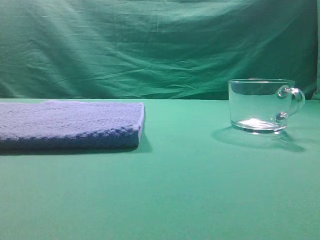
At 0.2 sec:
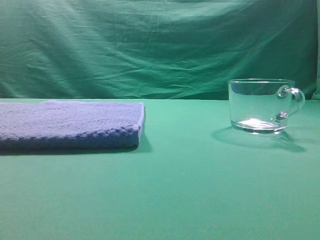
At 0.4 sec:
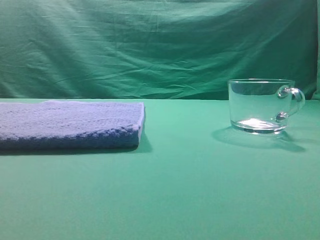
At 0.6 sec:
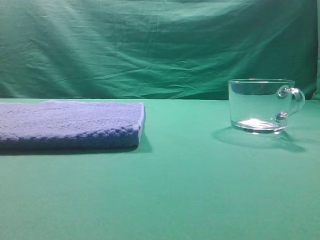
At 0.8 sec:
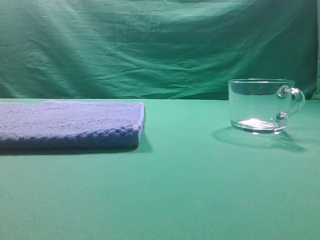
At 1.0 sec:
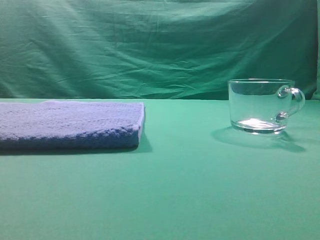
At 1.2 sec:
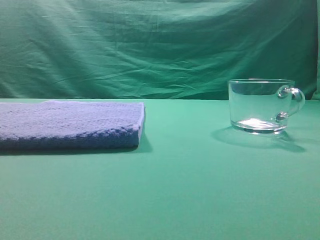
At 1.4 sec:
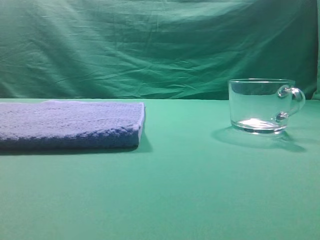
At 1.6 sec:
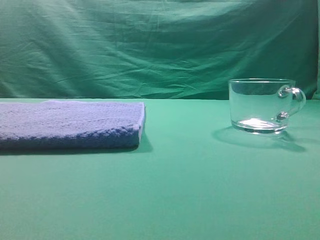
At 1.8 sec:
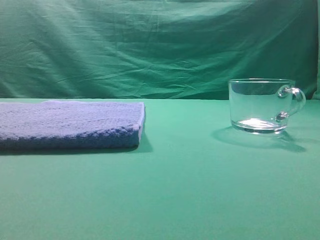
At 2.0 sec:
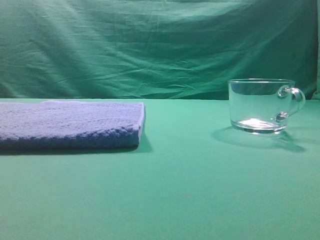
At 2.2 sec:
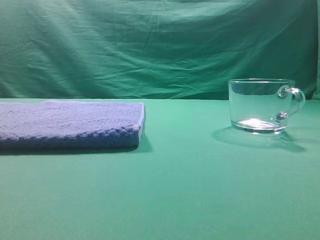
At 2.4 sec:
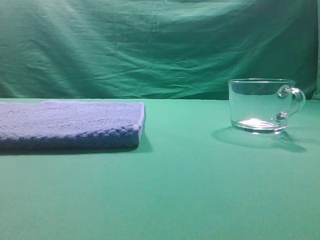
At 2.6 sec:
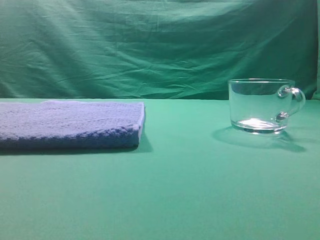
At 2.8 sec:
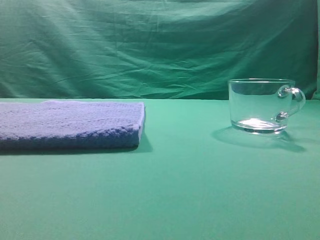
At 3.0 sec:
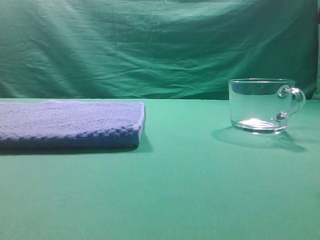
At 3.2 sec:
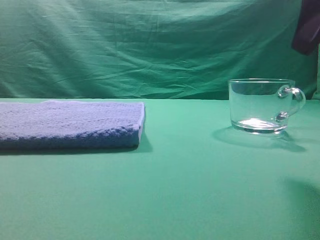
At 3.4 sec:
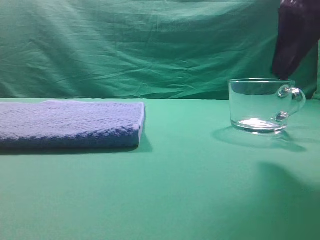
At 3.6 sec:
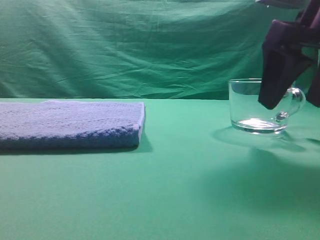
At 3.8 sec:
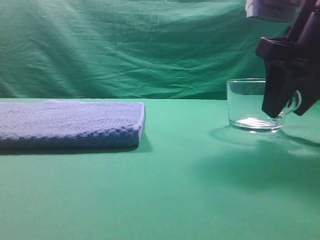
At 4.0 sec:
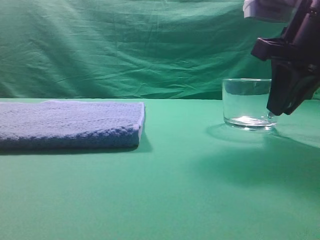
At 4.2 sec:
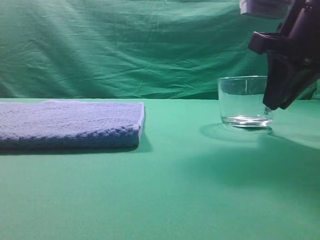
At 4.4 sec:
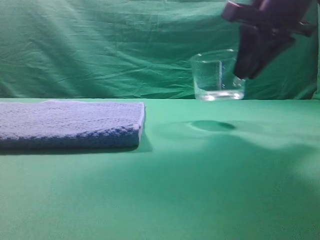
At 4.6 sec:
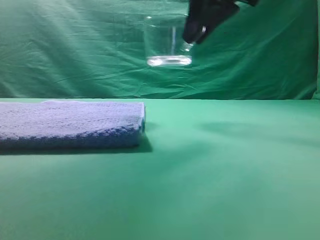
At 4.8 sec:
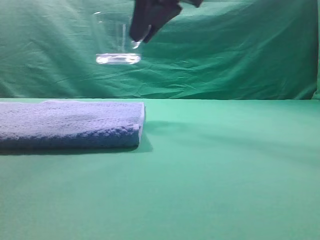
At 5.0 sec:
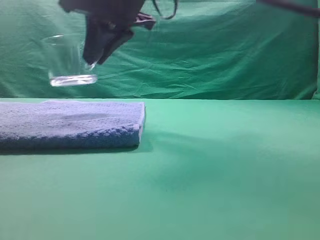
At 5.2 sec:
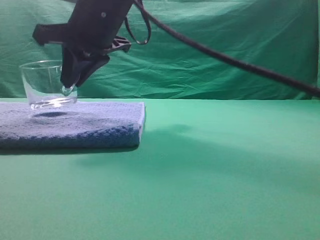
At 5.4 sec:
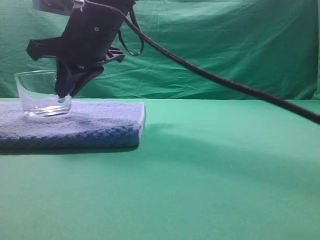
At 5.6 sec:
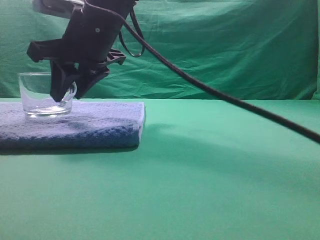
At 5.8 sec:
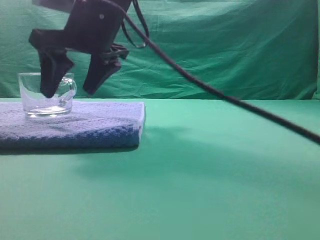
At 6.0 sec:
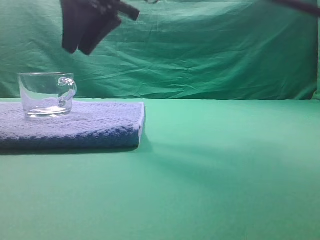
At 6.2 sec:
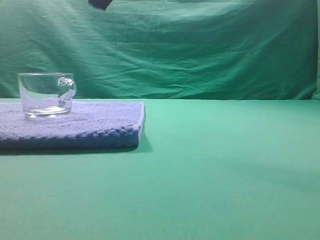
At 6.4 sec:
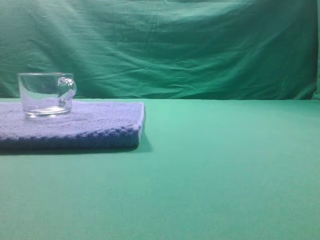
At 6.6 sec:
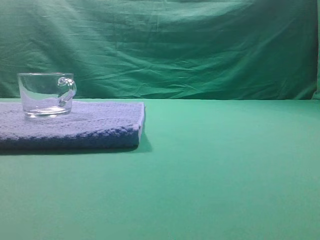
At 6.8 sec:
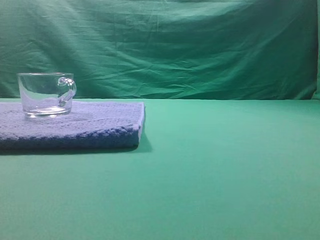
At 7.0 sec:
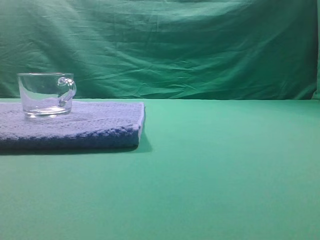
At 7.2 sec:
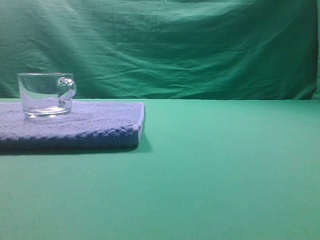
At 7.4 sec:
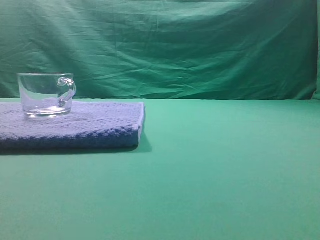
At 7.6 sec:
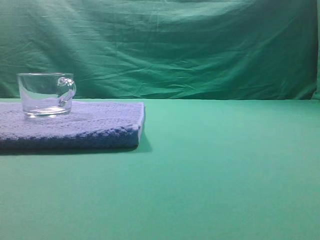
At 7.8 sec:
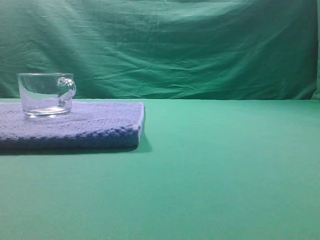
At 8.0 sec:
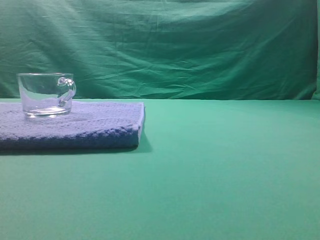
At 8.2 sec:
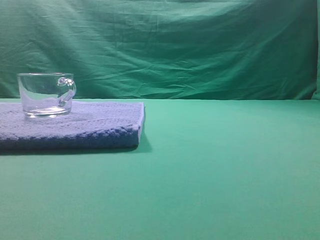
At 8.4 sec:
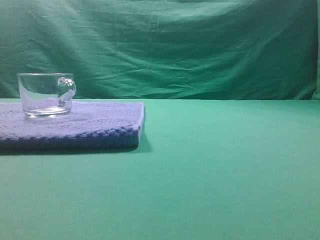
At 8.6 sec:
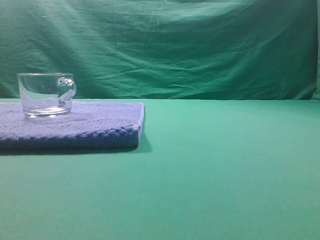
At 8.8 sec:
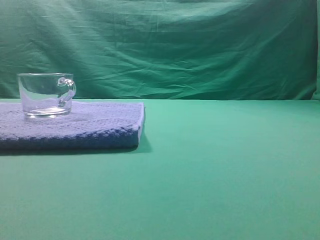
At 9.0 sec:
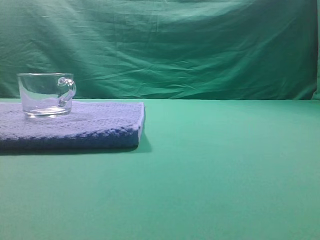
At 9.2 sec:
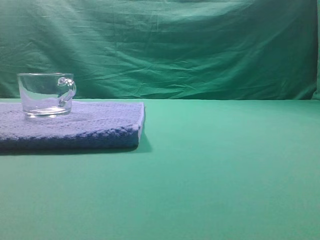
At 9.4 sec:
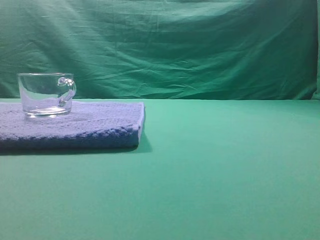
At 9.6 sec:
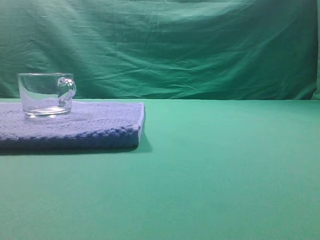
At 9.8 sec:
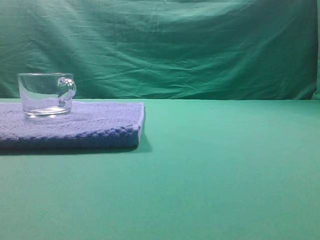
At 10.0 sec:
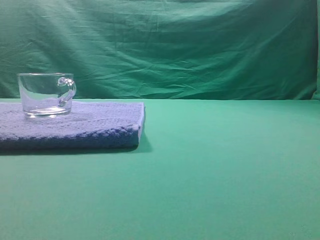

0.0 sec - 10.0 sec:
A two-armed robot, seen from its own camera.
Task of the whole recording: grasp the transparent glass cup and place it within the blue towel.
Step, 0.0 sec - 4.2 sec: Grasp the transparent glass cup.
Step, 4.4 sec - 5.8 sec: Place the glass cup on the blue zone.
